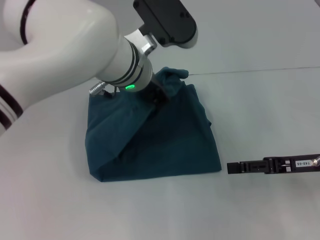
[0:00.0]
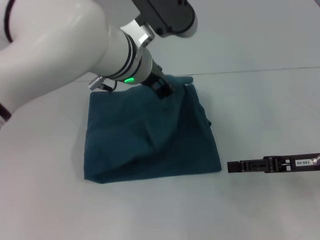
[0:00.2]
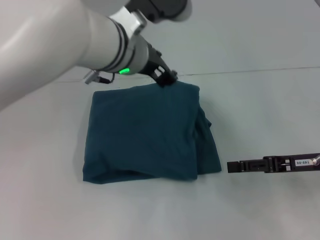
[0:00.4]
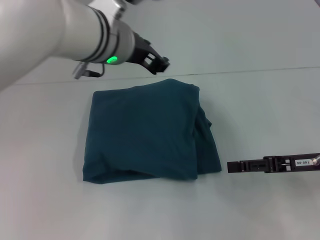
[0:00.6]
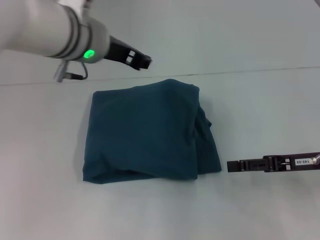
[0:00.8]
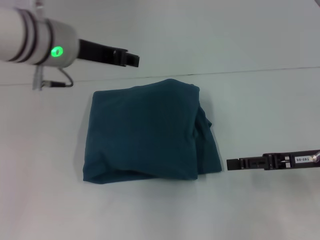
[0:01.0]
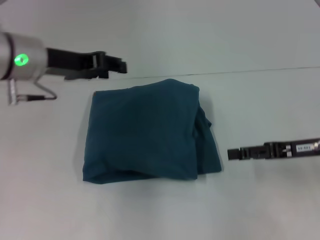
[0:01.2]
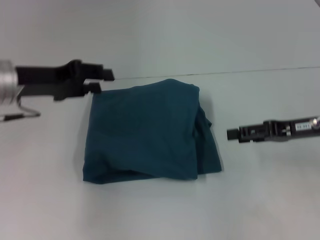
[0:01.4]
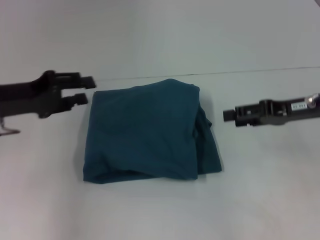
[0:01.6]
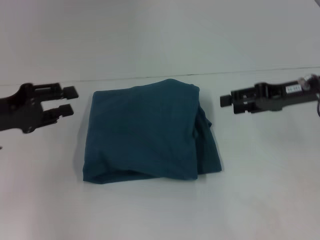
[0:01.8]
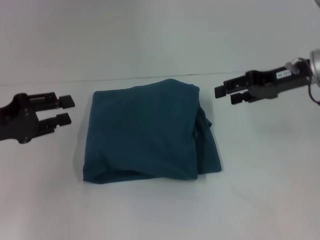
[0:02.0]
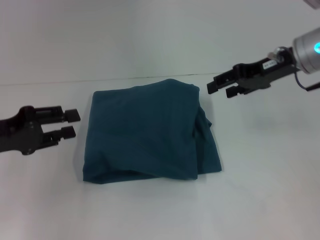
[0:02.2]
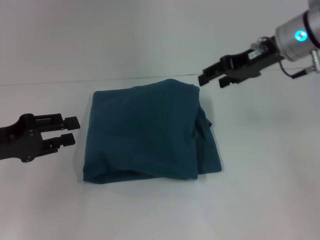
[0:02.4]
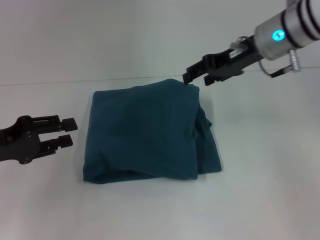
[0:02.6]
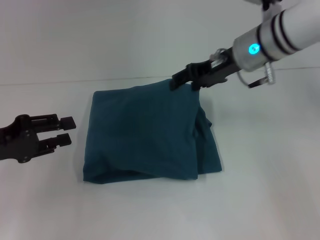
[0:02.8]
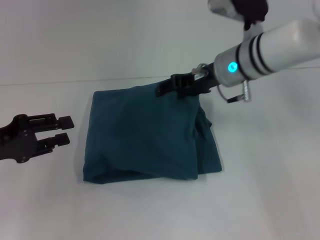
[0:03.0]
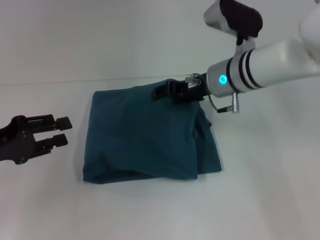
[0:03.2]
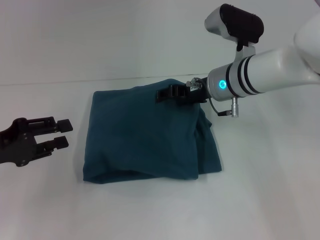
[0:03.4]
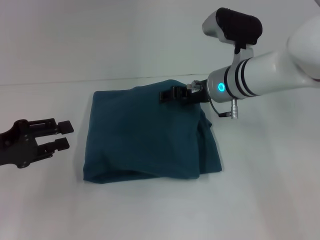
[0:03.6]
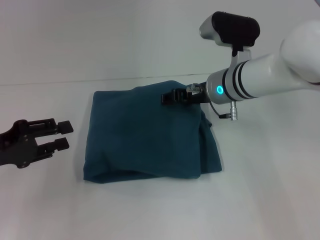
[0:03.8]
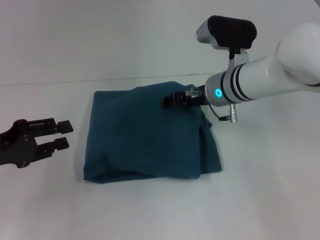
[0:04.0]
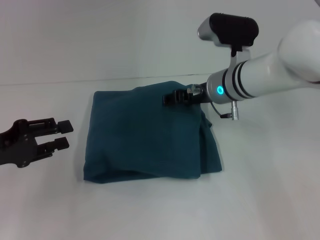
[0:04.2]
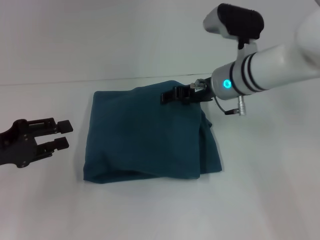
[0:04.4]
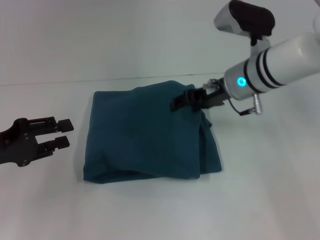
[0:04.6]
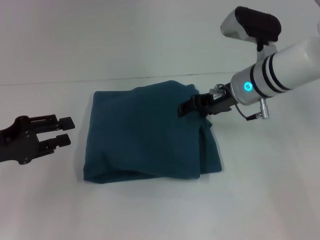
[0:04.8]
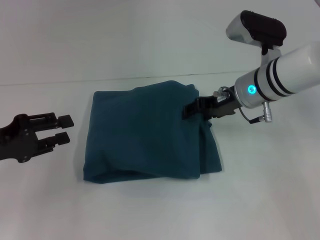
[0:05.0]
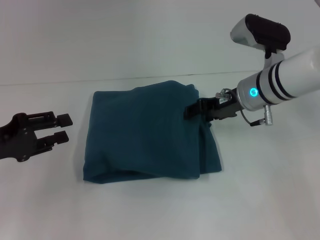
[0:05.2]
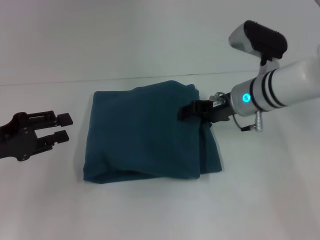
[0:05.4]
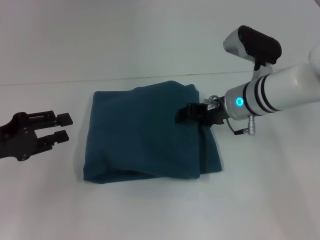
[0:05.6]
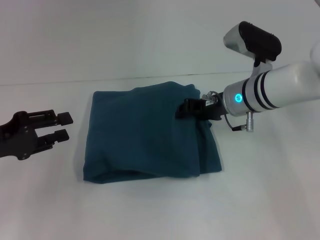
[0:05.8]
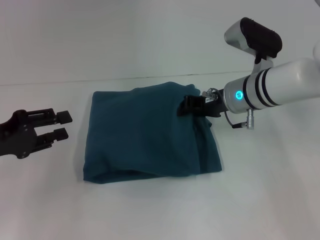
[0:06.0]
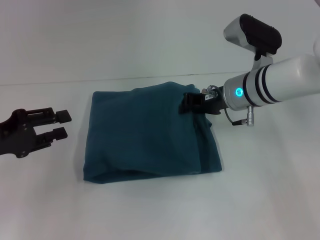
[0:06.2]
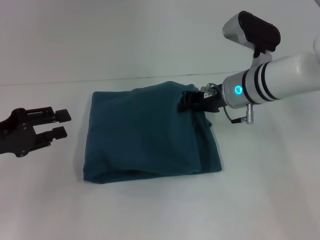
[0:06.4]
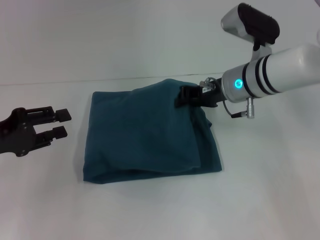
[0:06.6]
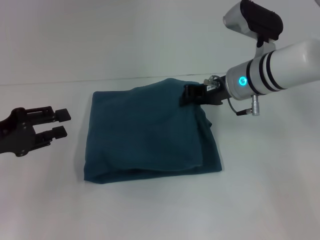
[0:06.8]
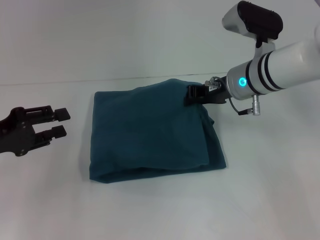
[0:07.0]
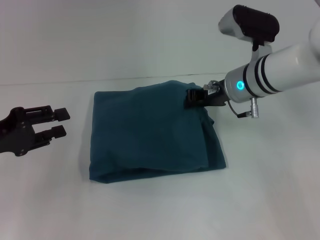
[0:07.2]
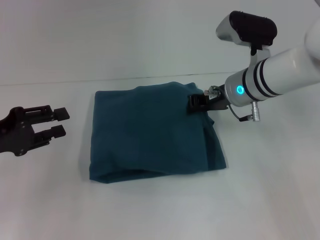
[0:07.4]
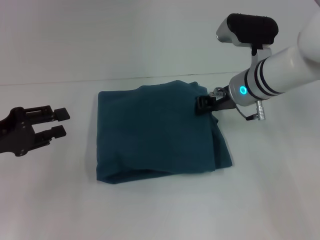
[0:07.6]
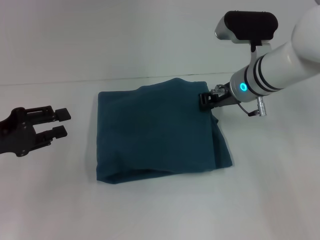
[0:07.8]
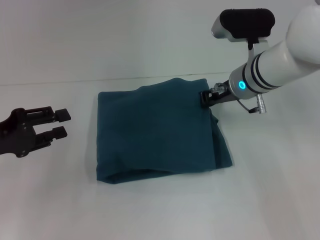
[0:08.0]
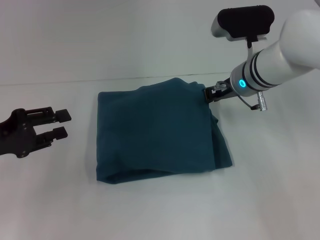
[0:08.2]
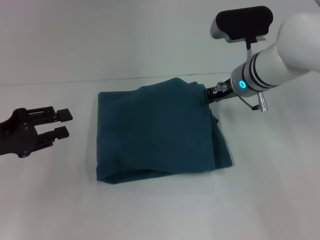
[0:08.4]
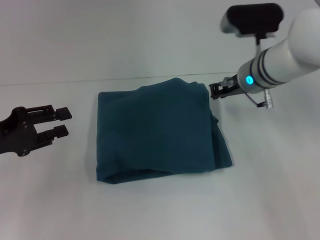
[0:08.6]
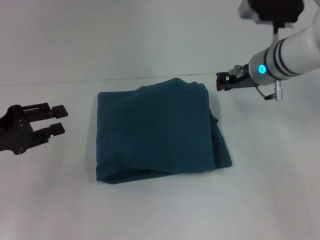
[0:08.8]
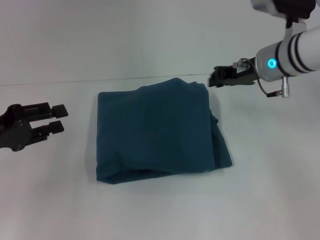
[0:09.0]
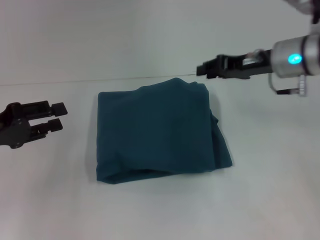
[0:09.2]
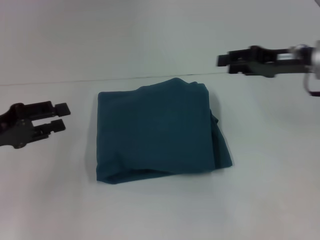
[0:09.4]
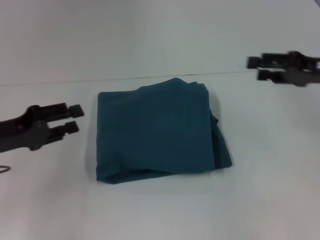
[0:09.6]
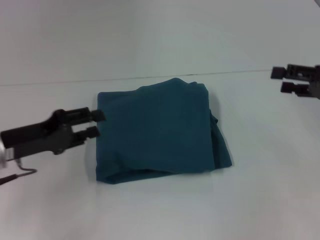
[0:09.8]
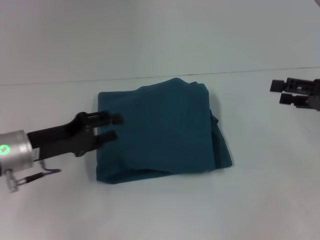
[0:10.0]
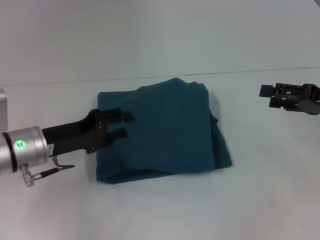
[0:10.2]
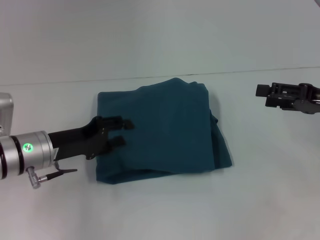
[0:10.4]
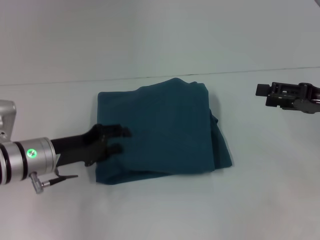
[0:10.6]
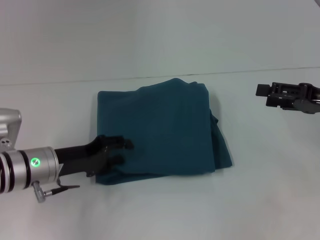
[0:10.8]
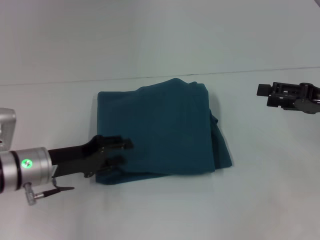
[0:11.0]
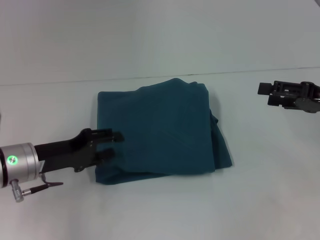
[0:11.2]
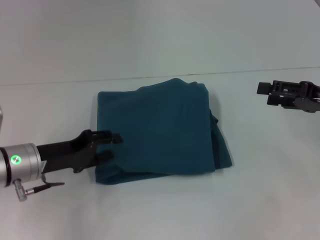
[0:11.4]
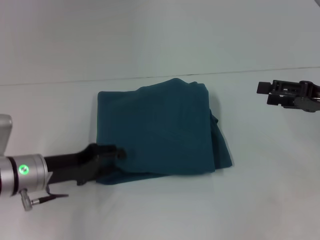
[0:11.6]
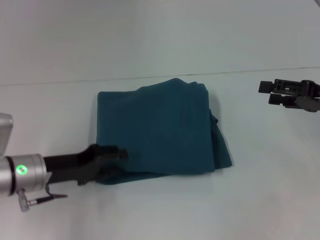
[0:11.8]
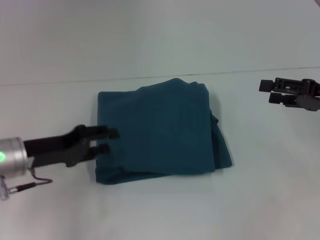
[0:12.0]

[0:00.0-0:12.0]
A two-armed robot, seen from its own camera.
0:00.0 to 0:01.6: The right gripper travels upward and forward by some 10 cm; the left gripper is displaced to the left by roughly 25 cm, and opens.
0:01.6 to 0:03.0: The right gripper shifts roughly 15 cm to the left and forward. Meanwhile the left gripper is displaced backward by approximately 5 cm.
0:03.0 to 0:04.4: The grippers make only small movements.
0:04.4 to 0:06.0: The right gripper closes.
0:06.0 to 0:07.6: The right gripper closes.
0:07.6 to 0:09.0: The right gripper changes place by roughly 5 cm.
0:09.0 to 0:10.4: The right gripper travels to the right and backward by some 15 cm, and opens its fingers. Meanwhile the left gripper is displaced to the right and downward by approximately 10 cm.
0:10.4 to 0:12.0: There are only small adjustments of the grippers.

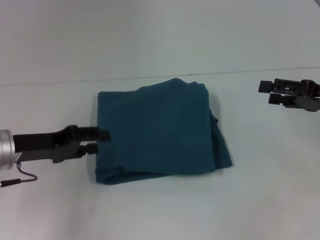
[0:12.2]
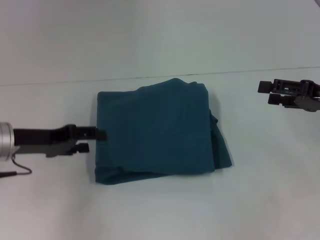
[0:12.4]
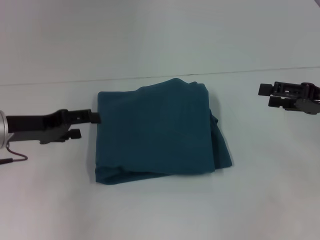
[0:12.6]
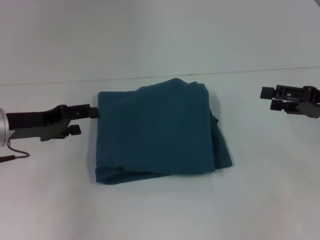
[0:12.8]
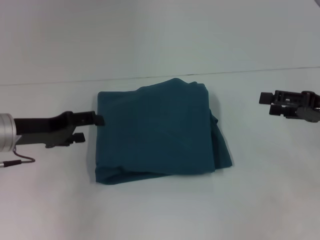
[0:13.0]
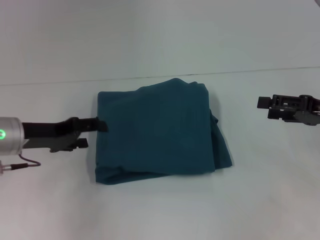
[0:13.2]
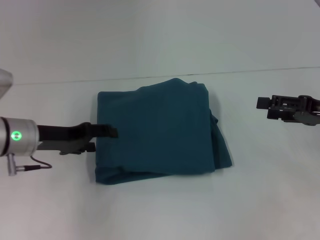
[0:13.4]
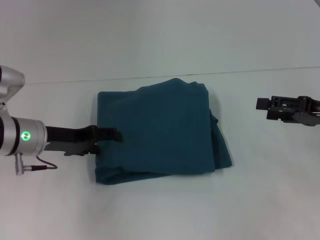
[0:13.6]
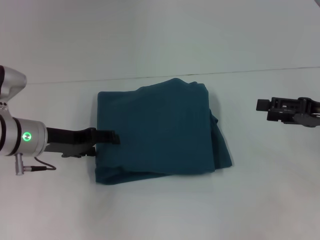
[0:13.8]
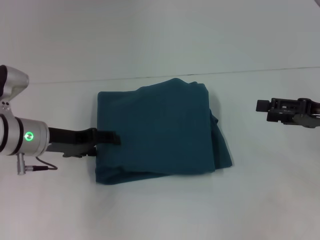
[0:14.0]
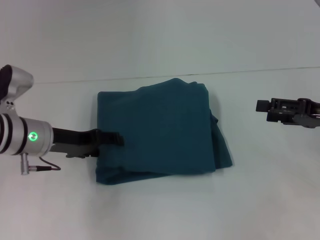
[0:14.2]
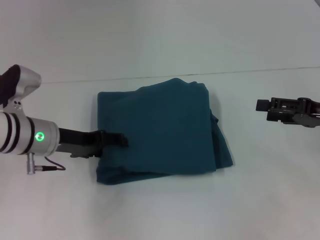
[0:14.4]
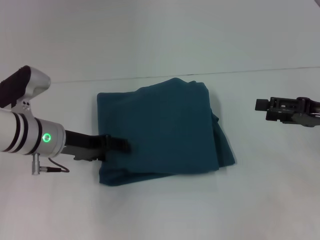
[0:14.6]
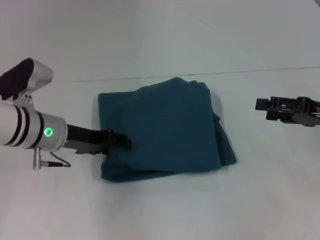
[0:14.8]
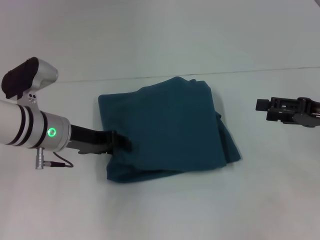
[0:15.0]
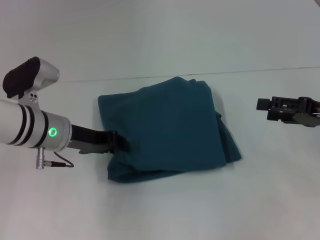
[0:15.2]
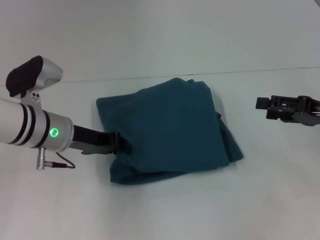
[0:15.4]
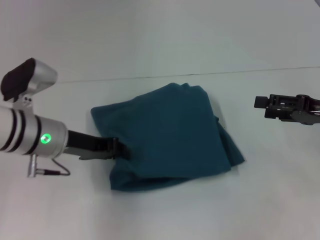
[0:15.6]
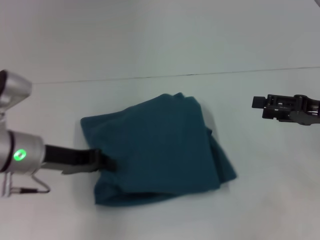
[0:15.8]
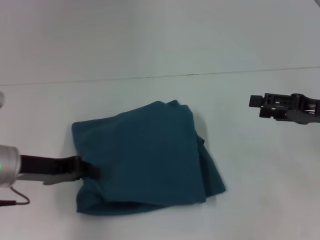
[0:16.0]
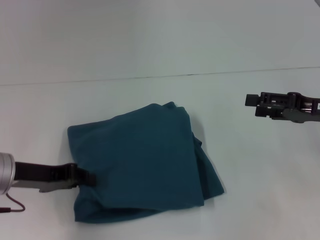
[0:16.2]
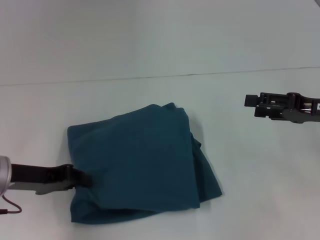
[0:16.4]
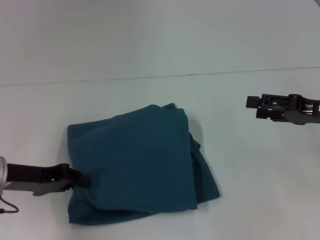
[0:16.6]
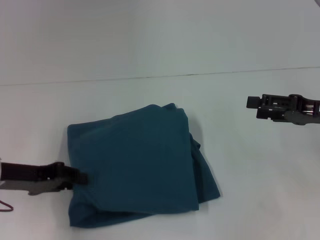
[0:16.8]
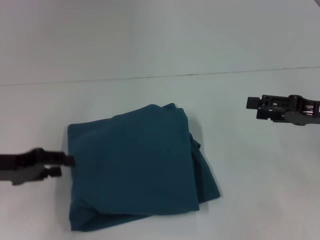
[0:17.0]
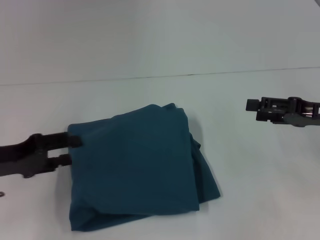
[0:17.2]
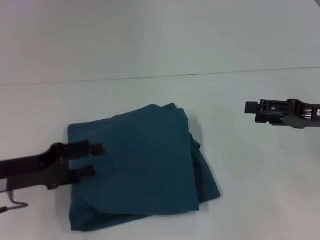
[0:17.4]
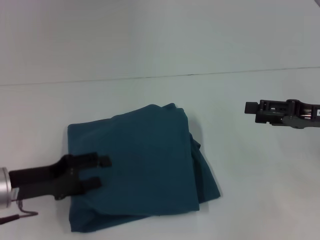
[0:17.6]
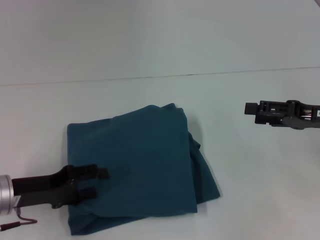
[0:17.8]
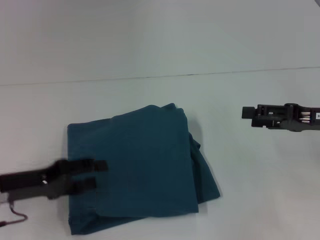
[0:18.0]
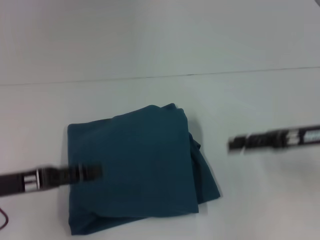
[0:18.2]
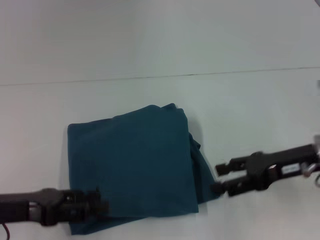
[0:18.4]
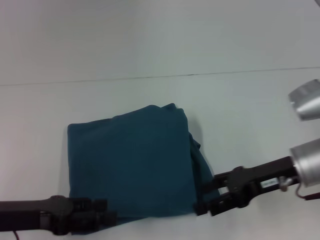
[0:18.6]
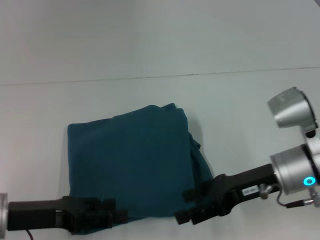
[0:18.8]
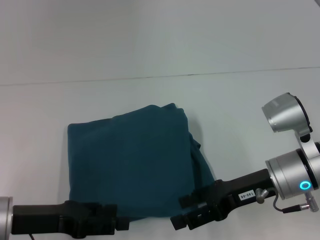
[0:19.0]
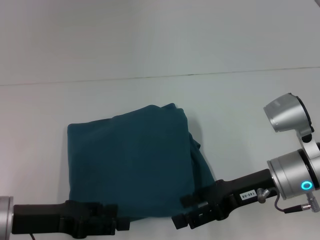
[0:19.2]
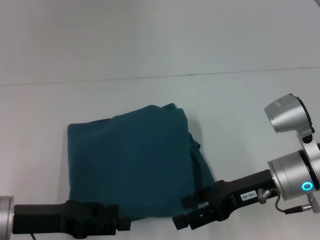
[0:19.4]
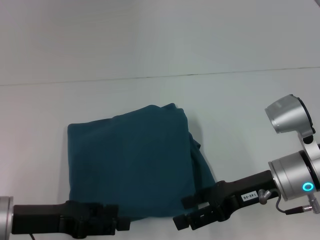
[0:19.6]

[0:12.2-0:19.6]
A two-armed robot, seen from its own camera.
0:12.2 to 0:13.6: The left gripper moves approximately 5 cm.
0:13.6 to 0:15.2: The left gripper closes.
0:15.2 to 0:16.6: The left gripper is displaced to the left and backward by some 10 cm, and closes up.
0:16.6 to 0:18.2: The left gripper opens.
0:18.2 to 0:19.6: The right gripper goes some 10 cm to the left. Meanwhile the left gripper shifts by some 5 cm.

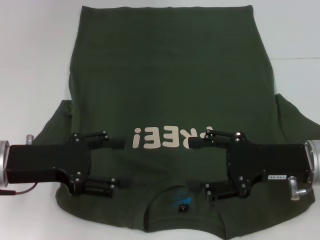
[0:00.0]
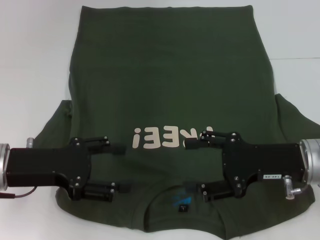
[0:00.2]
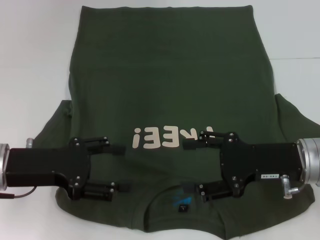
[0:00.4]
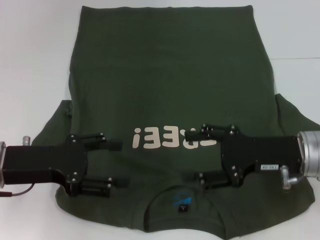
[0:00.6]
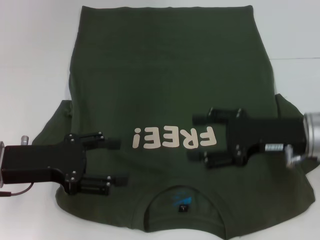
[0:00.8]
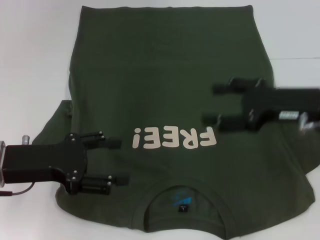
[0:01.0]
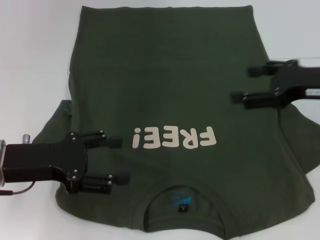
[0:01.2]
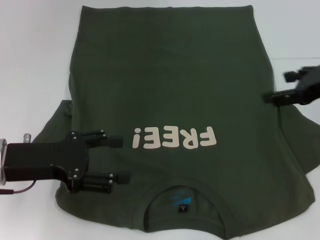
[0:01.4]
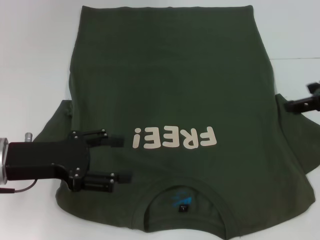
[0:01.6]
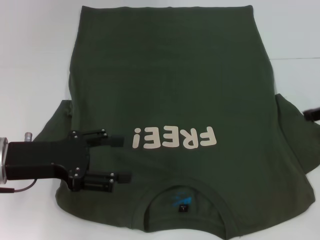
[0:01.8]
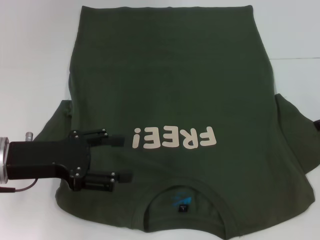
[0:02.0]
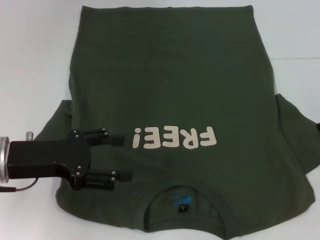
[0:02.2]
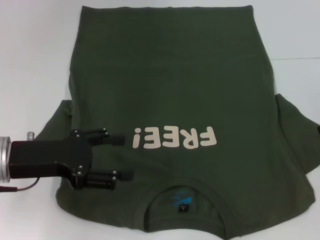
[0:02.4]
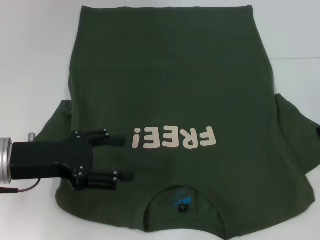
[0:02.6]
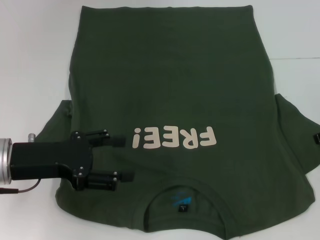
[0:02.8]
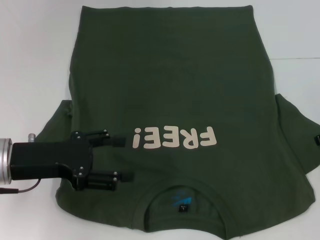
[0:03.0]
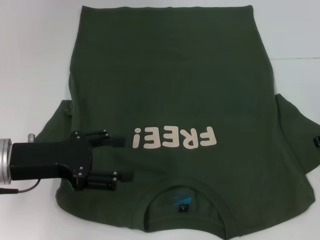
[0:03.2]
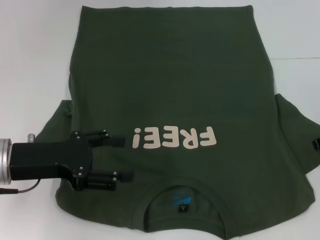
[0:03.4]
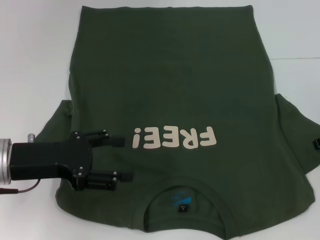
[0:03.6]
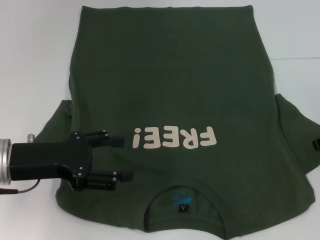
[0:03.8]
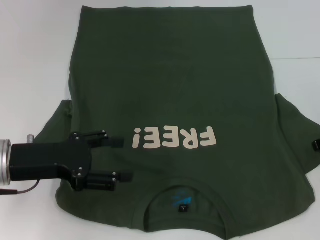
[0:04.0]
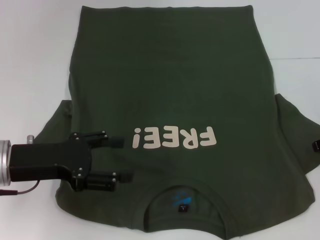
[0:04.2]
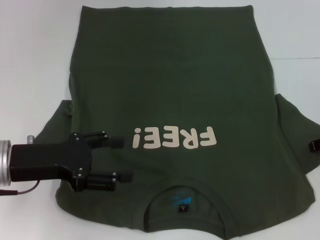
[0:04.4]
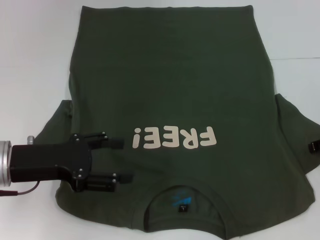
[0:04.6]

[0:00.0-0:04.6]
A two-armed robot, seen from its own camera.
0:00.0 to 0:01.6: The right gripper moves upward, to the right and forward, some 15 cm.
0:01.6 to 0:03.0: The right gripper heads downward, covering roughly 5 cm.
0:03.0 to 0:04.6: There are only small adjustments of the grippers.
